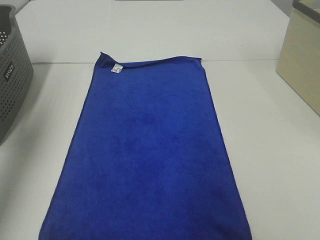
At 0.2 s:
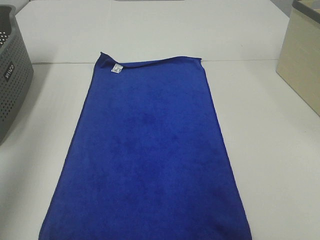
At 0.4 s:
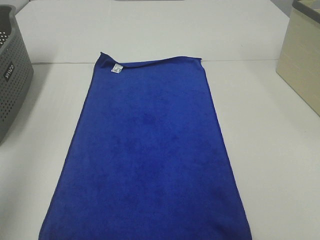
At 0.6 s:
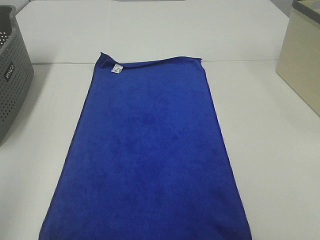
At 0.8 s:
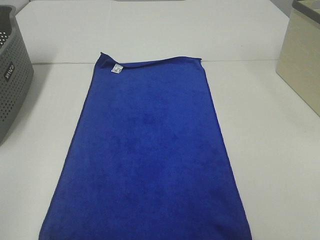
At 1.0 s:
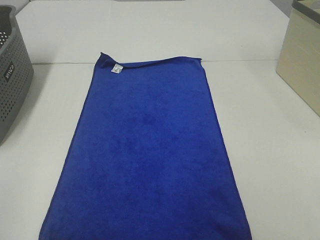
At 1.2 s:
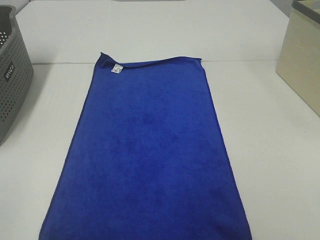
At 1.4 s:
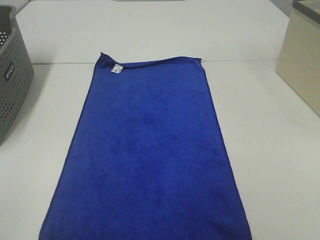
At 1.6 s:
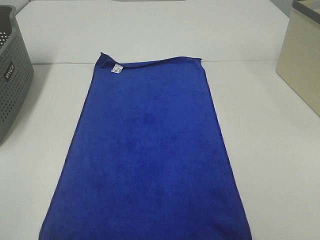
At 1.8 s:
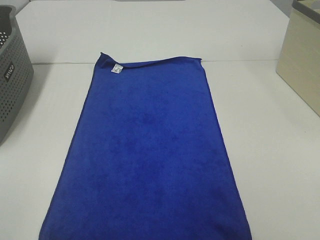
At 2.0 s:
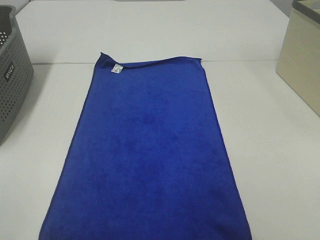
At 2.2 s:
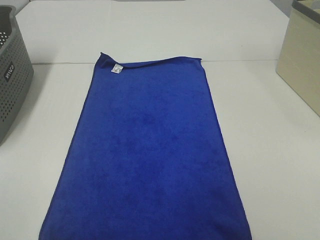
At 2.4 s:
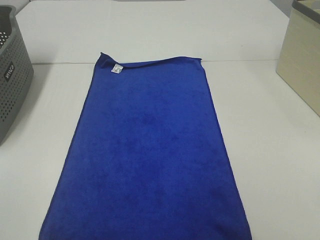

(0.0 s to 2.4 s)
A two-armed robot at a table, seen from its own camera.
Task of the whole recording: Remove the towel and place it.
0.0 s - 1.2 s: The left gripper shifts approximately 30 cm backward and downward.

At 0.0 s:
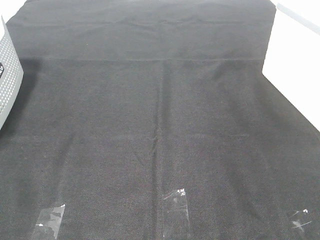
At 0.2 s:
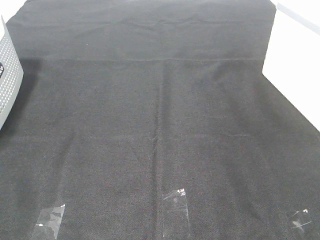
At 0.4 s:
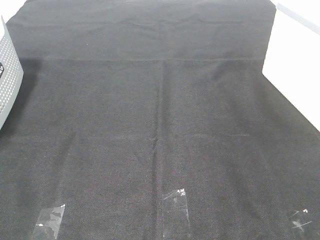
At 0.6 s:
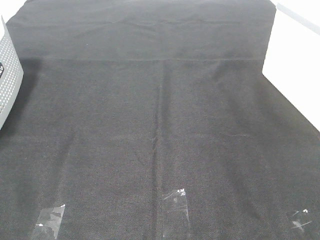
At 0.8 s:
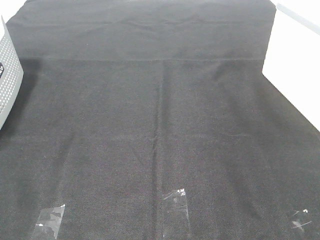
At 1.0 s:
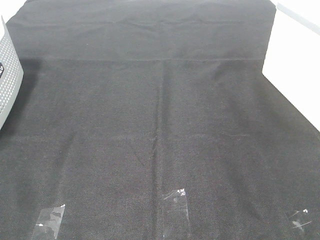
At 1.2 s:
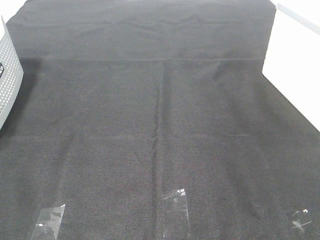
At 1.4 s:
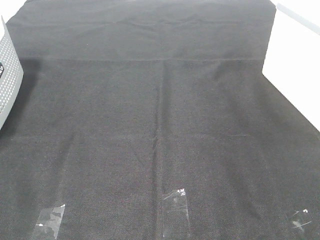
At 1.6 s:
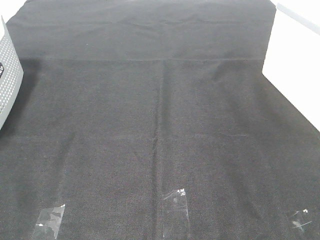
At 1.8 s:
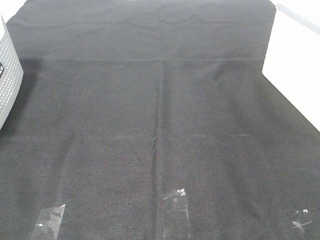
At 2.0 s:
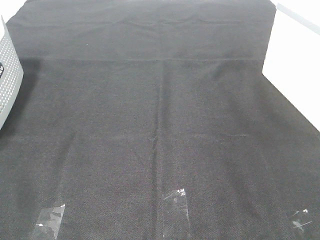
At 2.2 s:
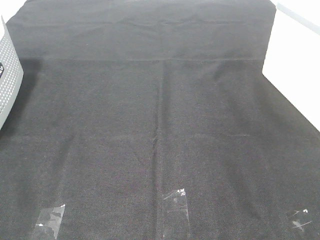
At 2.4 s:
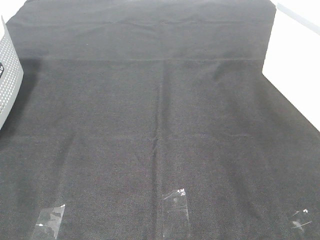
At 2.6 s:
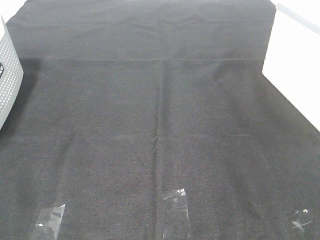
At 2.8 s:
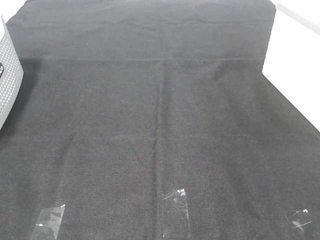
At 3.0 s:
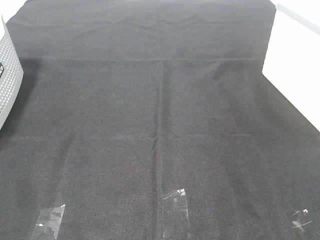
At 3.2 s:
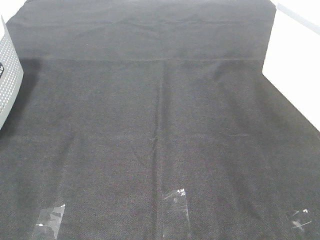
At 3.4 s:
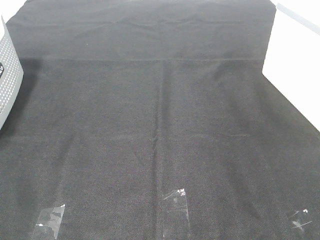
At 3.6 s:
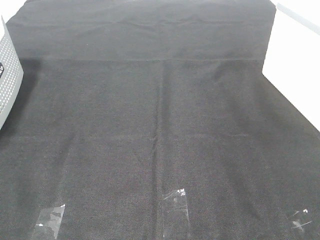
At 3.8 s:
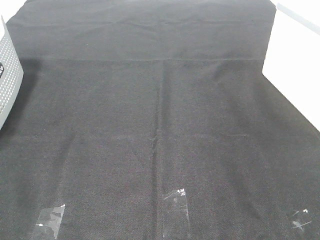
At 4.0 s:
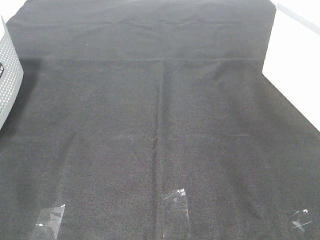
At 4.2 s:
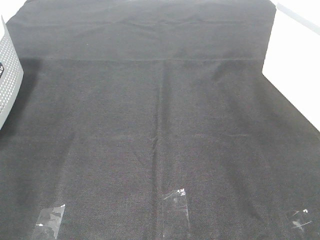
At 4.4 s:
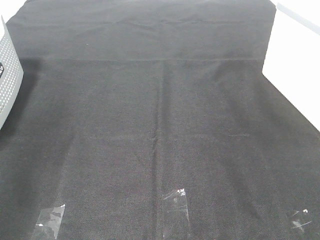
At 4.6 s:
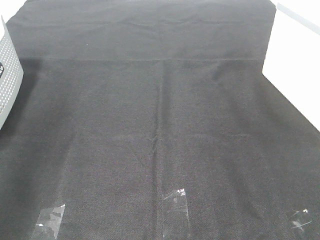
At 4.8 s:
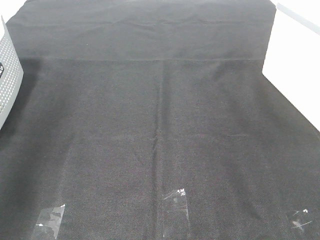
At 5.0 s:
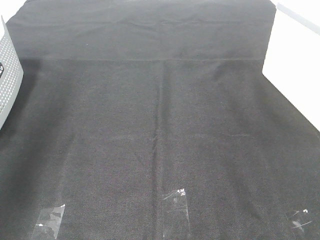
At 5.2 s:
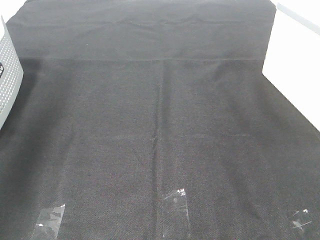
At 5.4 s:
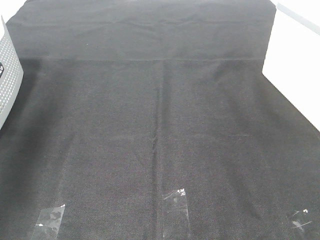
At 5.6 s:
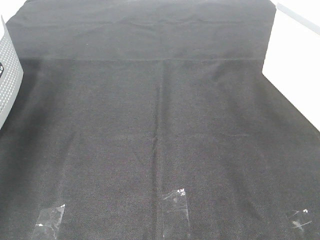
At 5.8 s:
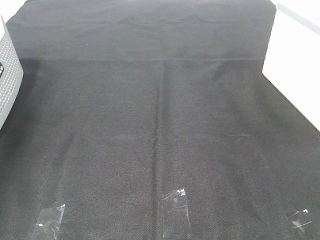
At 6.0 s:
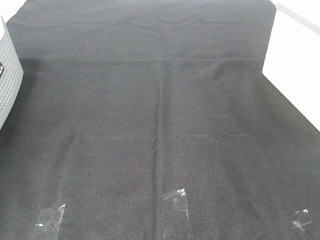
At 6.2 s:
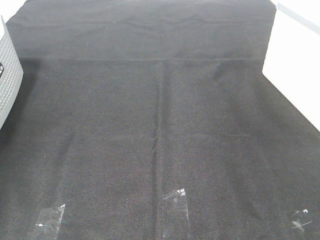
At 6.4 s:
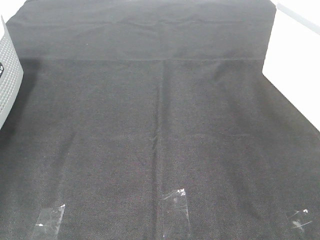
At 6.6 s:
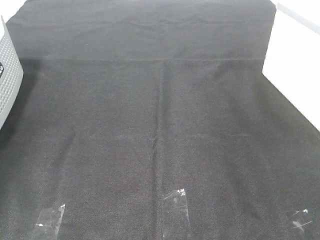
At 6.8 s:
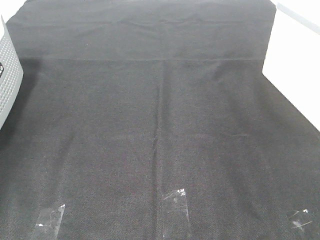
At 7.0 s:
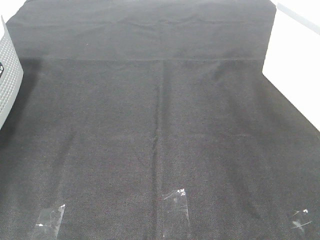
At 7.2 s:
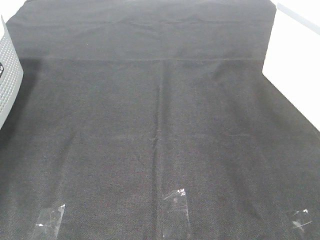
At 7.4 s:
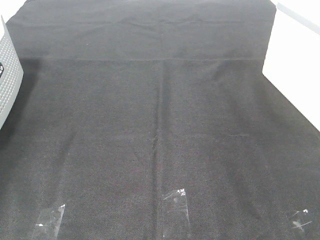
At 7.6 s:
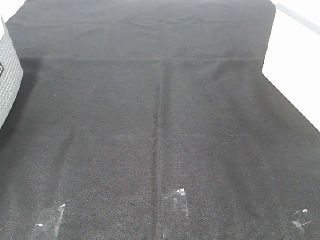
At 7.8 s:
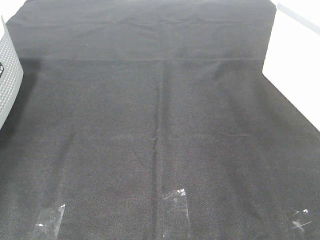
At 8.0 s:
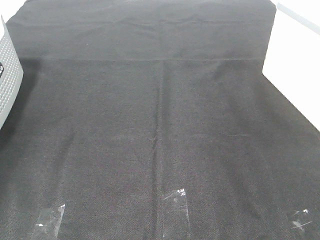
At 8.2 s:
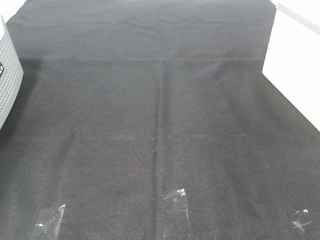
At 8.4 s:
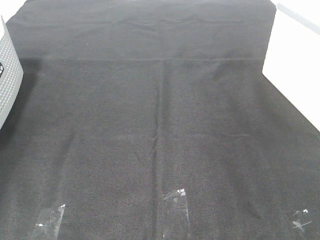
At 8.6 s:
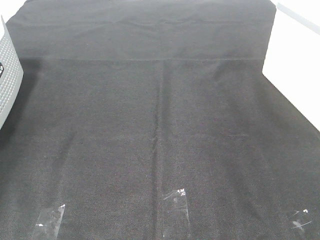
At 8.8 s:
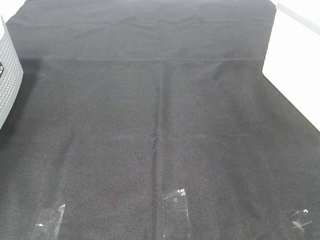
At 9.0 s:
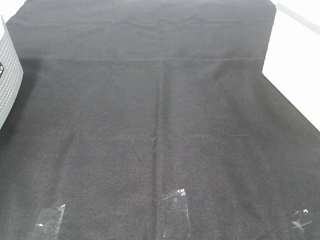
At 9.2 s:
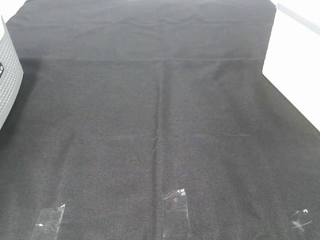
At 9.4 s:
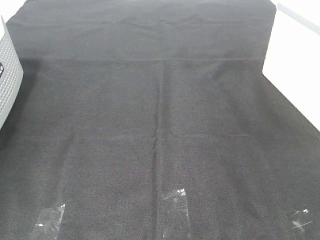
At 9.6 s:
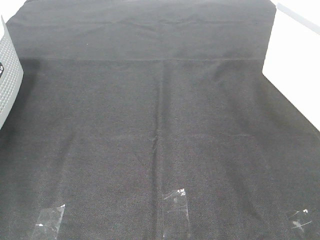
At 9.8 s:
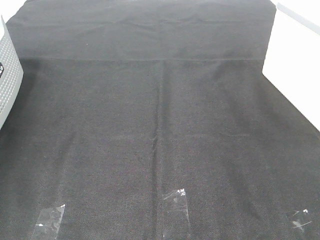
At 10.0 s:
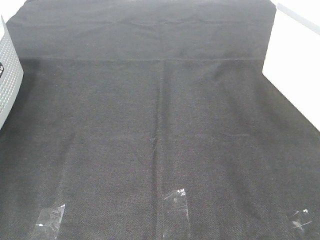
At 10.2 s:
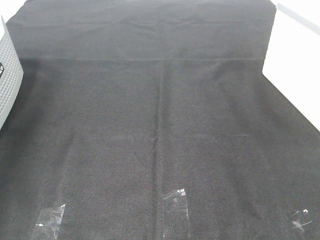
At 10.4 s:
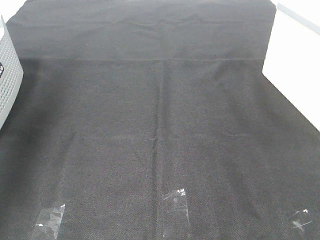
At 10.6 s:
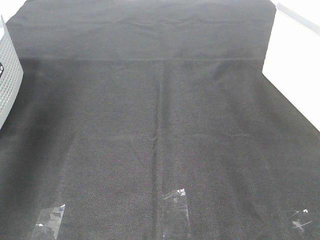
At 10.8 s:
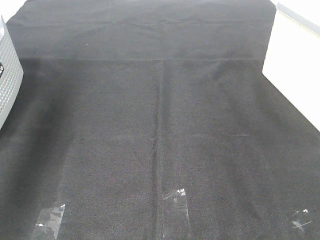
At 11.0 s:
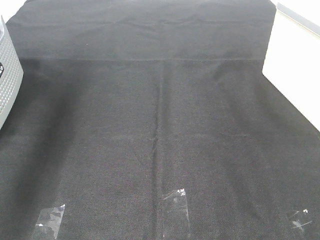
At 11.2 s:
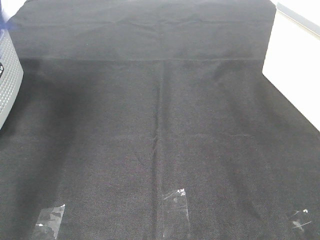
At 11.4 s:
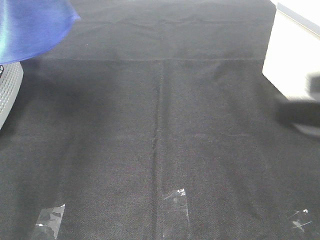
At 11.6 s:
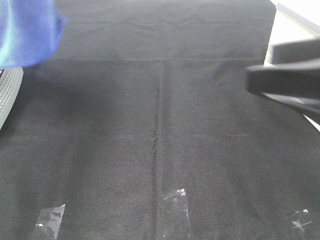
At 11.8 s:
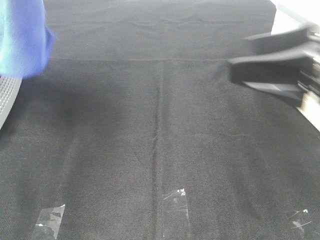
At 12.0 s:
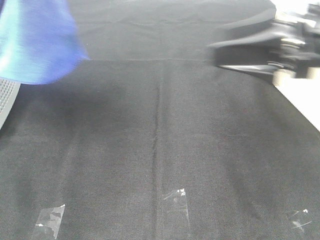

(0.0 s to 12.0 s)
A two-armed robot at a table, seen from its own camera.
Task of the whole recording: Remove the towel and place it.
0.0 s - 3.0 s: The two grippers keep their place.
4.4 s - 6.0 s: The left gripper heads forward and downward, covering approximately 35 cm.
9.0 s - 10.4 s: The left gripper heads upward, to the right and backward, covering approximately 25 cm.
10.4 s - 12.0 s: The right gripper moves forward, approximately 25 cm, while the left gripper shifts roughly 20 cm to the right.

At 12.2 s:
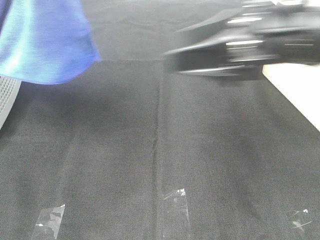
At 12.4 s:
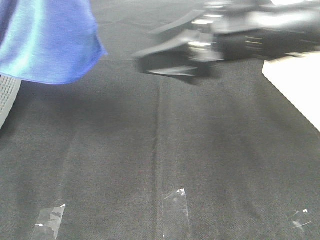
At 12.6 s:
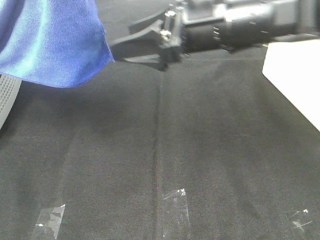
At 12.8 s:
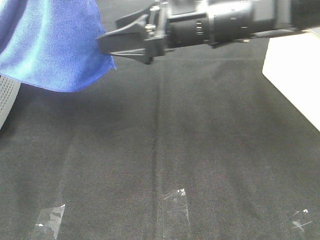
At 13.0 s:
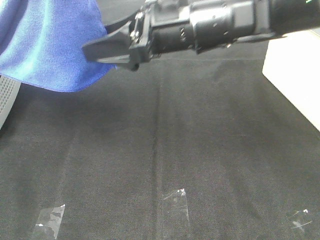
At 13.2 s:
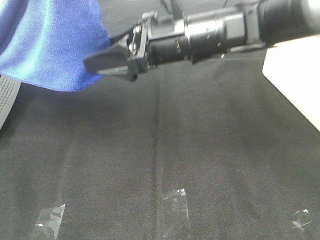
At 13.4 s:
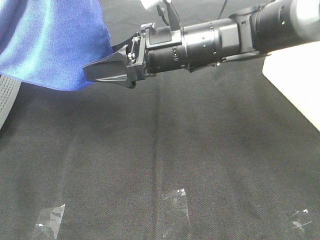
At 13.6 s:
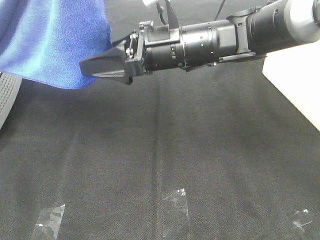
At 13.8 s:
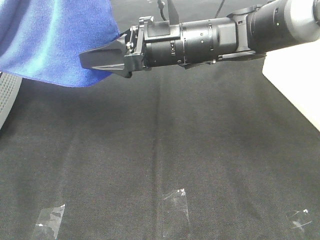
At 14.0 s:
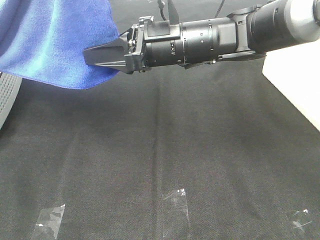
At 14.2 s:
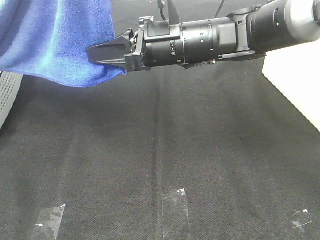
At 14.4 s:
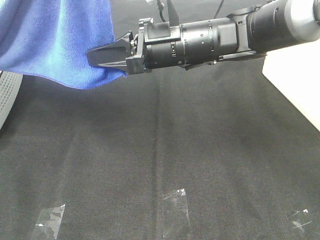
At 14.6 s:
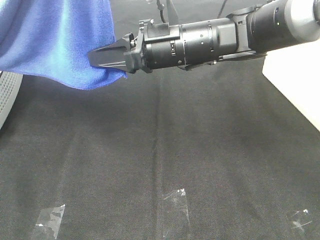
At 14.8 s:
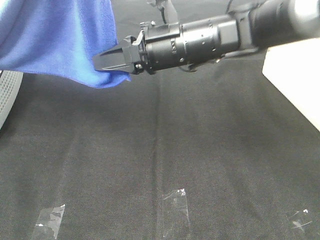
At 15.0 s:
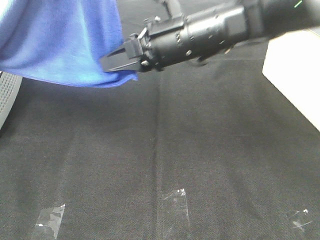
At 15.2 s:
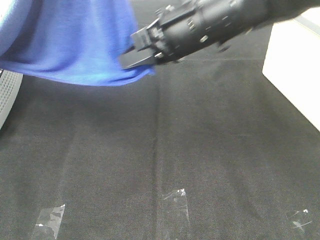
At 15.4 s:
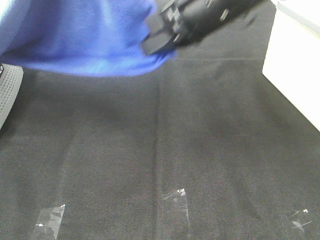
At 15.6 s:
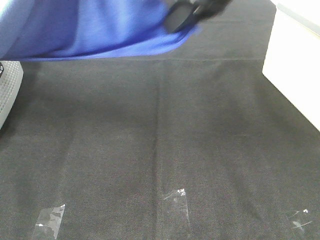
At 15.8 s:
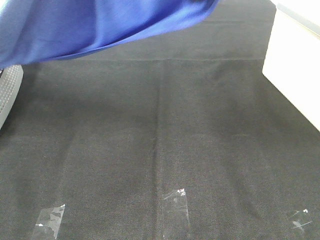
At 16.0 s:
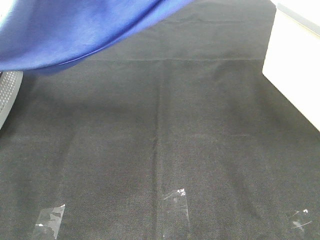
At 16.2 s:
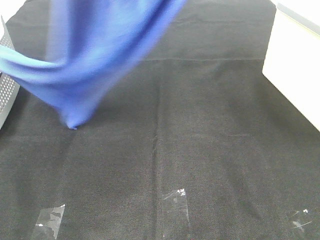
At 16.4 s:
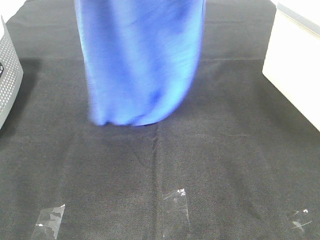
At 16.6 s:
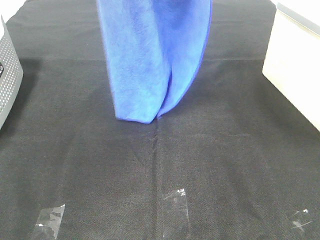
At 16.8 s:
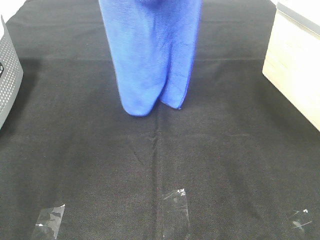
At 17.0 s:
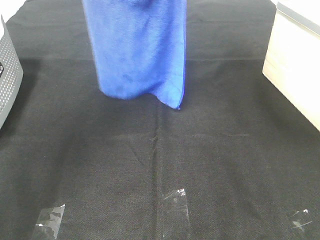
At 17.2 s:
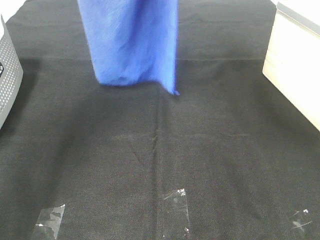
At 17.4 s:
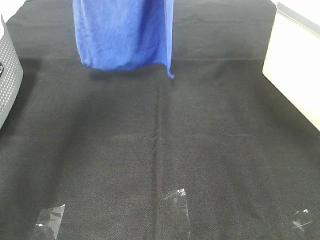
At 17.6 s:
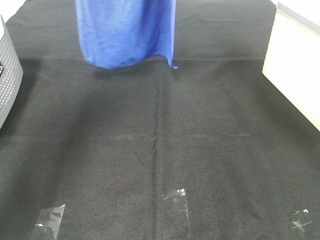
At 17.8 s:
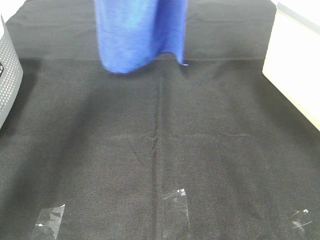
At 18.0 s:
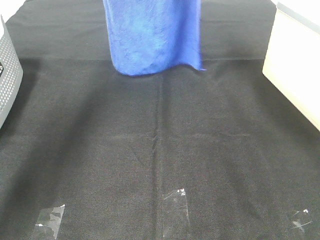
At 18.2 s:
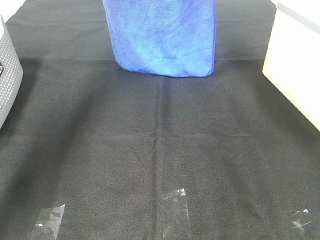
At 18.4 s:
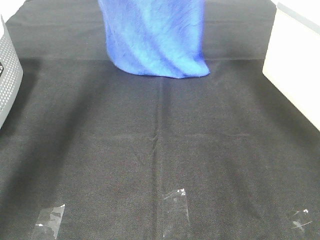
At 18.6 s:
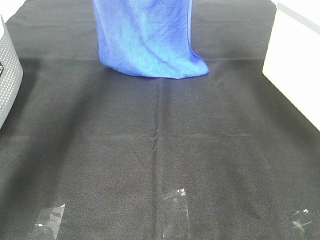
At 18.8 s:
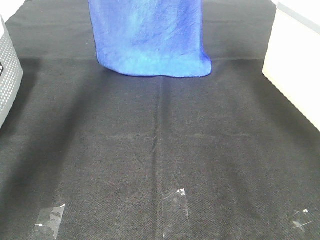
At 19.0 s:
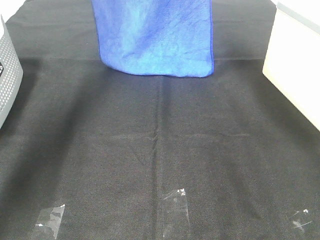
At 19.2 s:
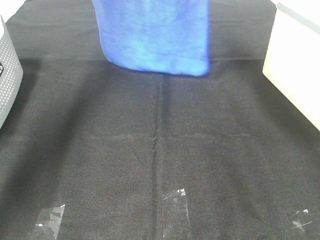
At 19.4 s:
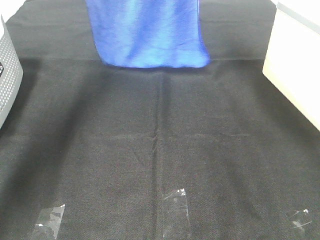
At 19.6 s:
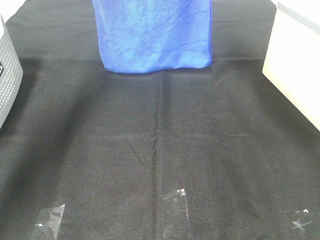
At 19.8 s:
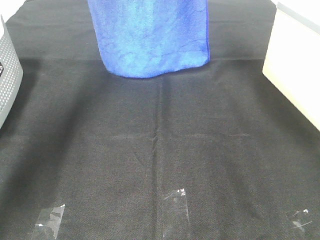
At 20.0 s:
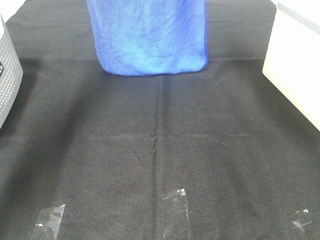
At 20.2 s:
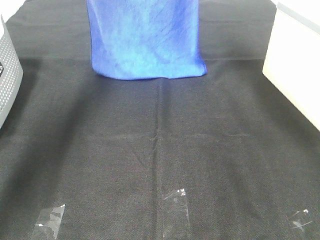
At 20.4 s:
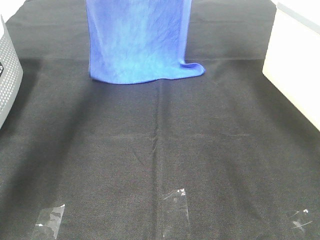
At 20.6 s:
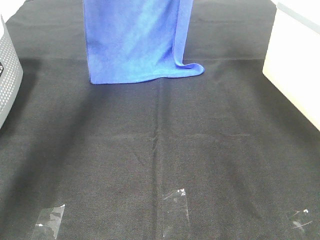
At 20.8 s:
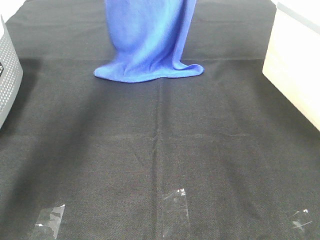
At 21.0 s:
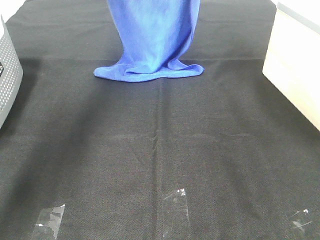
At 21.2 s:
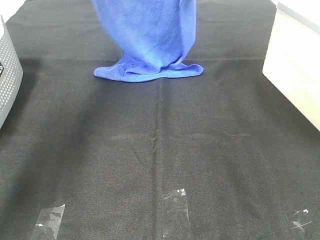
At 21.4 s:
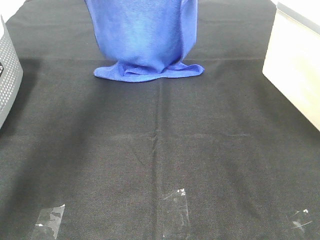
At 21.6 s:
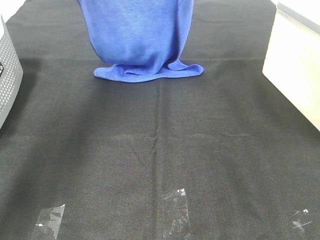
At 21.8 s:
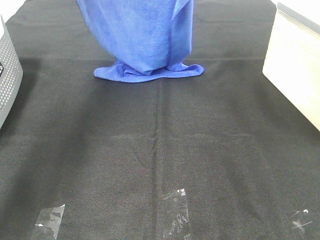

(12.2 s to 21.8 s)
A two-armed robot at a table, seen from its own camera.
Task of the whole recording: Remove the towel and place it.
12.2 s - 13.8 s: The right gripper heads to the left, forward and downward, covering roughly 15 cm.
13.8 s - 15.4 s: The right gripper is displaced upward by about 10 cm, and closes up.
15.4 s - 17.0 s: The right gripper is displaced upward and forward by about 20 cm. Meanwhile the left gripper is displaced forward and to the left by about 15 cm.
17.0 s - 18.6 s: The two grippers go some 15 cm forward and downward.
18.6 s - 20.2 s: There are only small adjustments of the grippers.
20.2 s - 21.8 s: The two grippers go approximately 10 cm backward.
